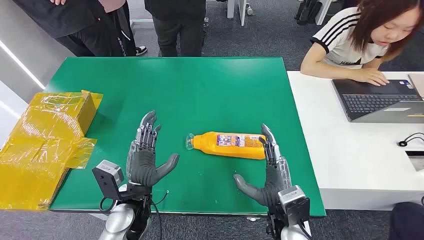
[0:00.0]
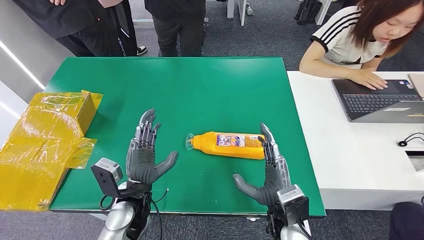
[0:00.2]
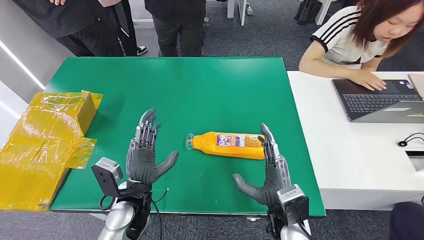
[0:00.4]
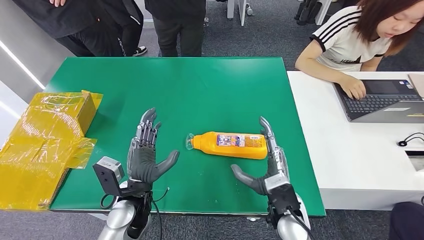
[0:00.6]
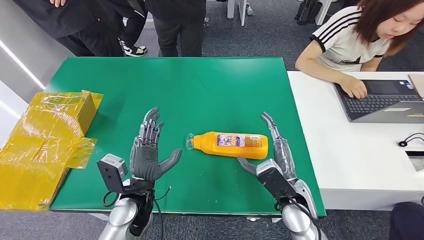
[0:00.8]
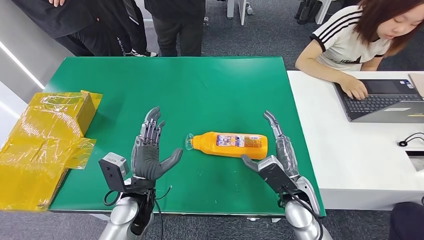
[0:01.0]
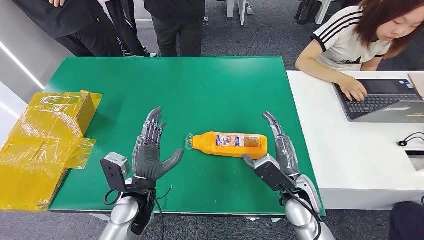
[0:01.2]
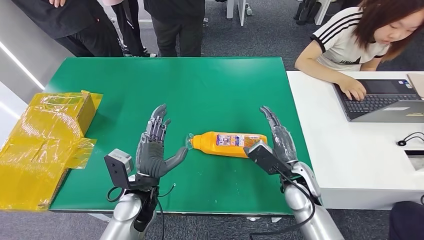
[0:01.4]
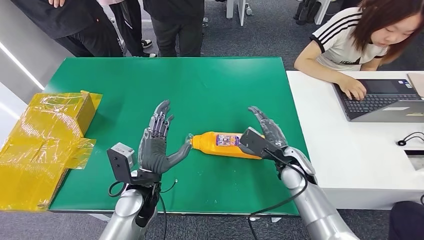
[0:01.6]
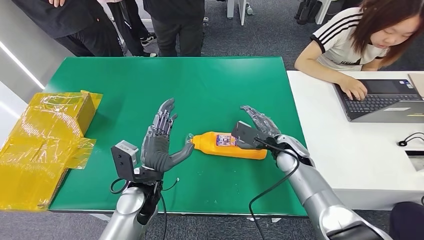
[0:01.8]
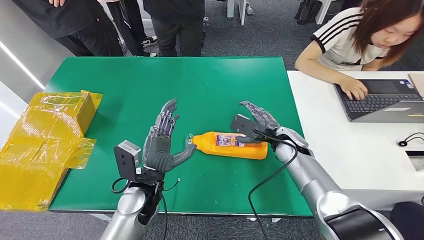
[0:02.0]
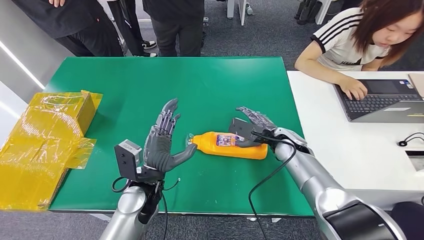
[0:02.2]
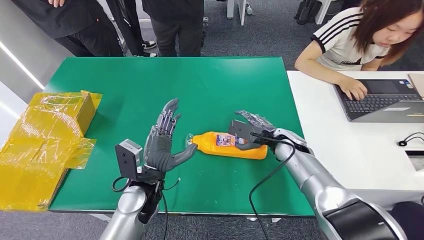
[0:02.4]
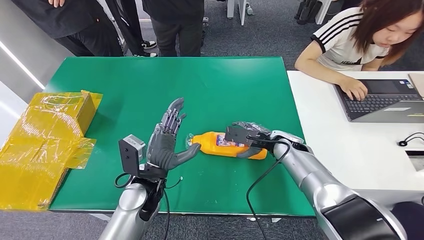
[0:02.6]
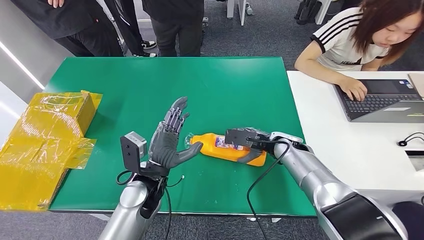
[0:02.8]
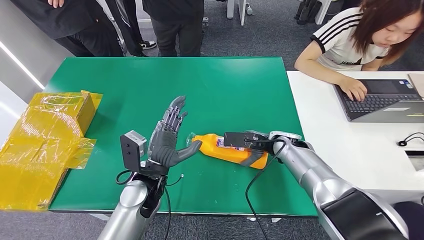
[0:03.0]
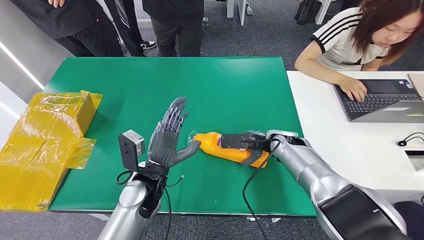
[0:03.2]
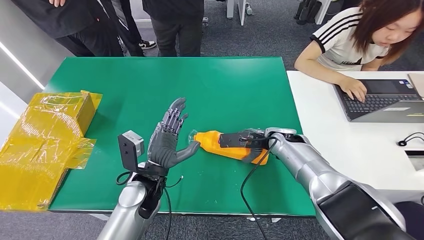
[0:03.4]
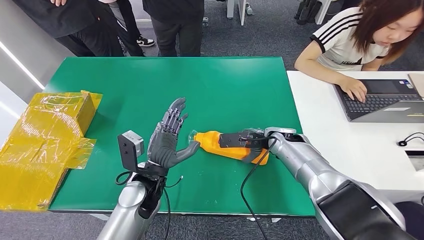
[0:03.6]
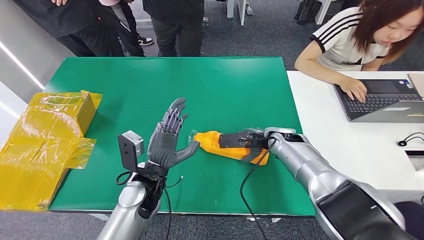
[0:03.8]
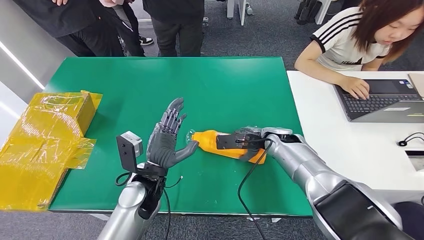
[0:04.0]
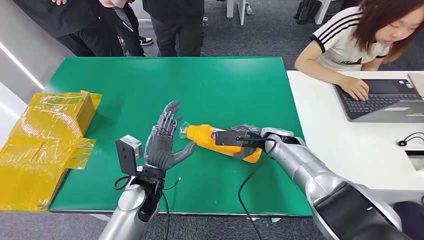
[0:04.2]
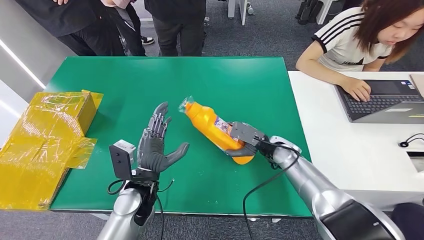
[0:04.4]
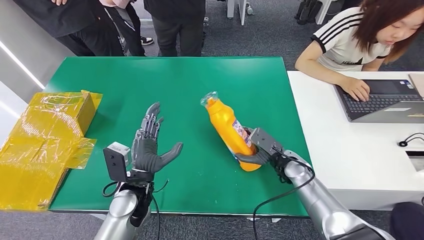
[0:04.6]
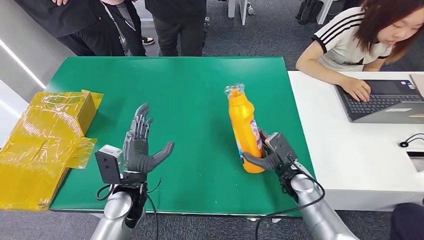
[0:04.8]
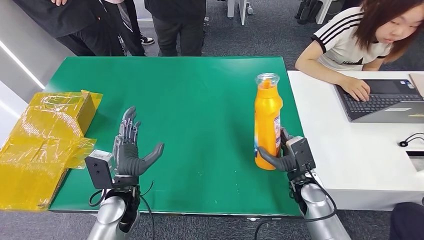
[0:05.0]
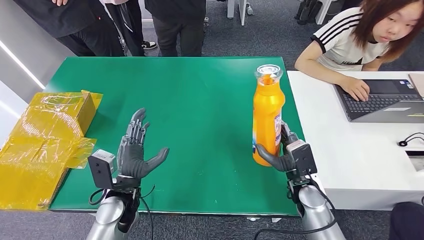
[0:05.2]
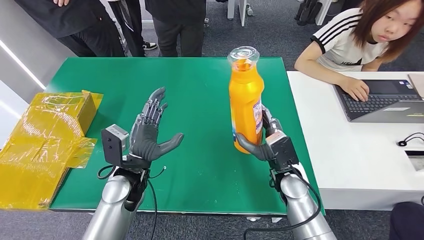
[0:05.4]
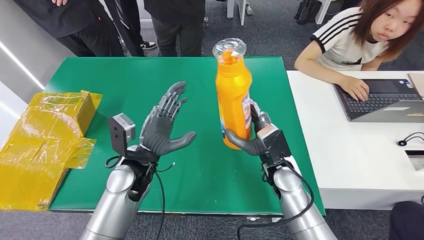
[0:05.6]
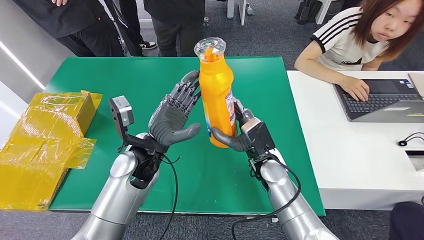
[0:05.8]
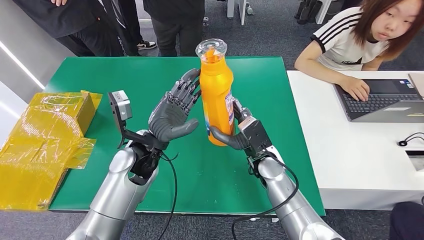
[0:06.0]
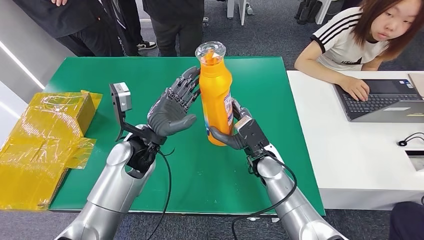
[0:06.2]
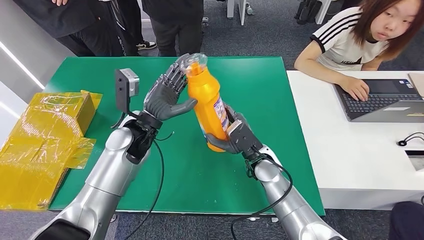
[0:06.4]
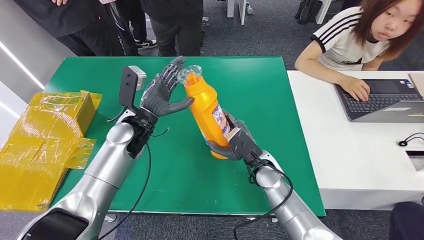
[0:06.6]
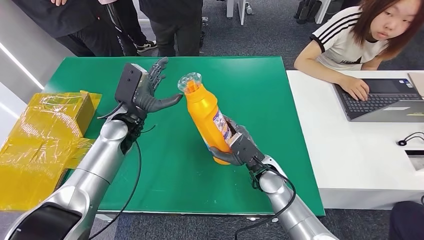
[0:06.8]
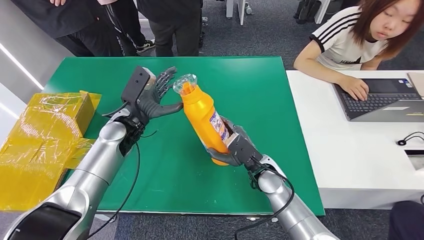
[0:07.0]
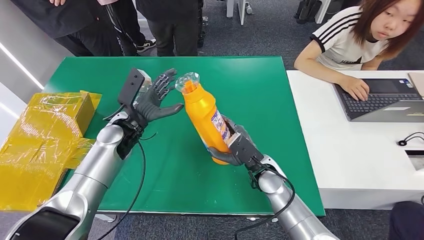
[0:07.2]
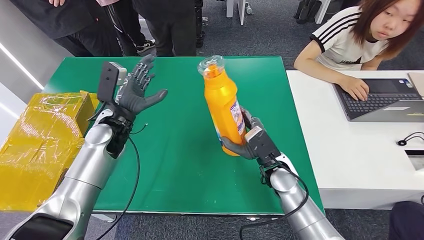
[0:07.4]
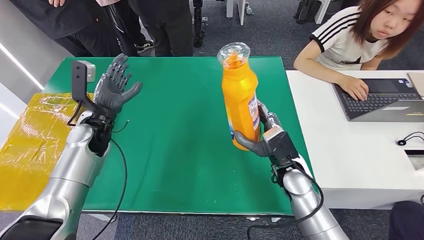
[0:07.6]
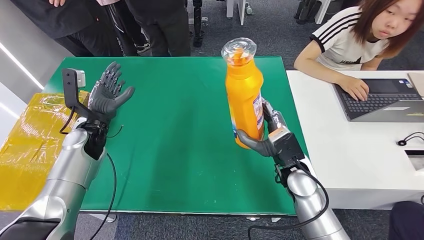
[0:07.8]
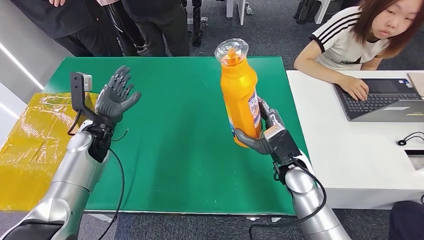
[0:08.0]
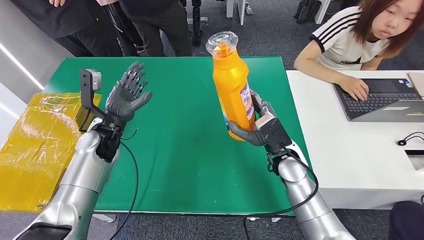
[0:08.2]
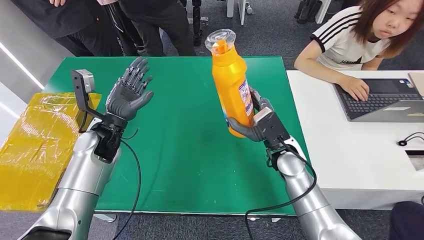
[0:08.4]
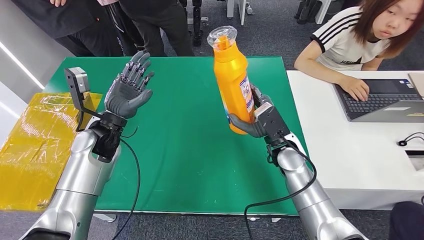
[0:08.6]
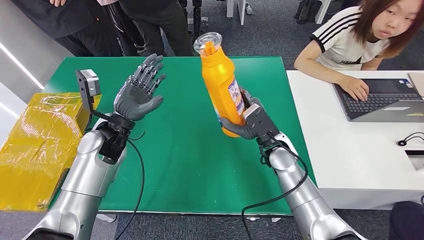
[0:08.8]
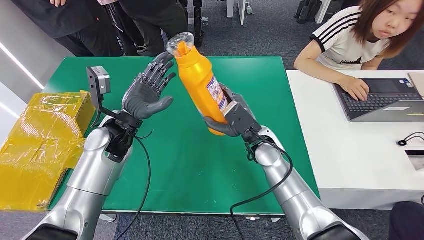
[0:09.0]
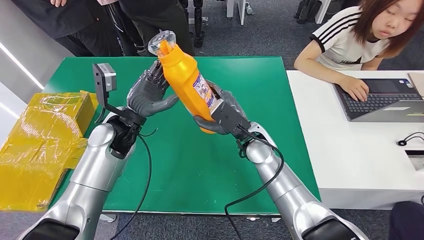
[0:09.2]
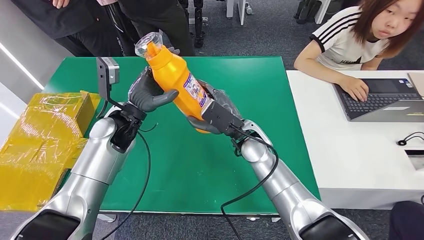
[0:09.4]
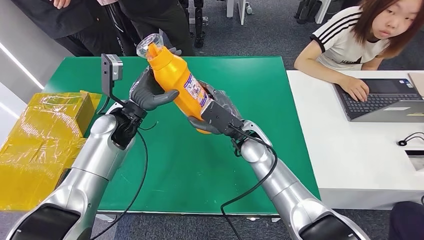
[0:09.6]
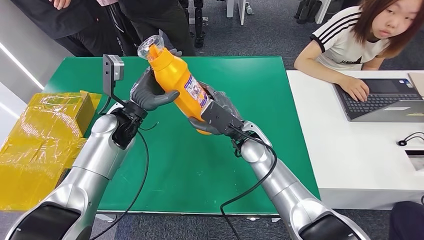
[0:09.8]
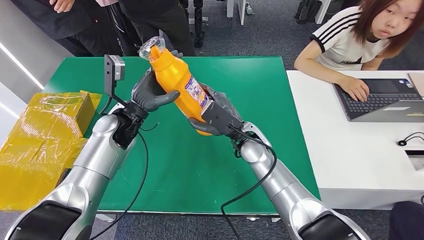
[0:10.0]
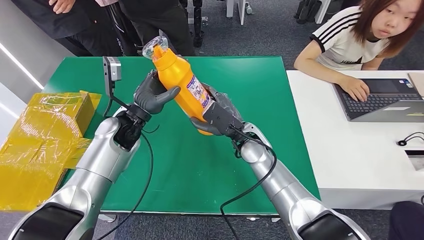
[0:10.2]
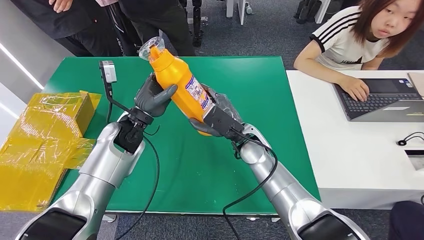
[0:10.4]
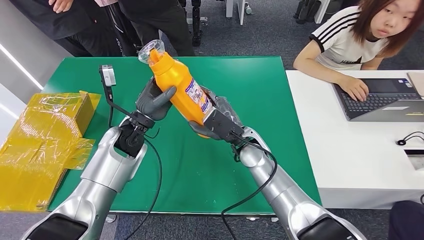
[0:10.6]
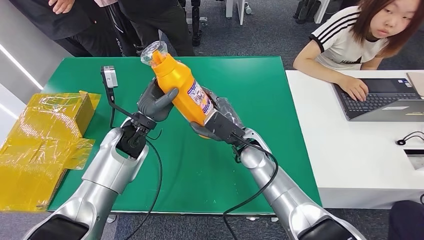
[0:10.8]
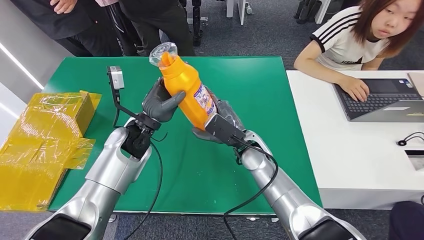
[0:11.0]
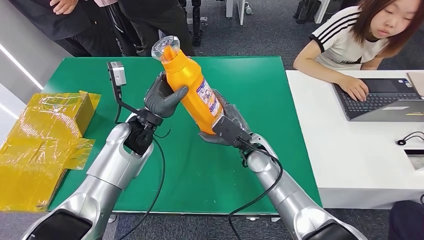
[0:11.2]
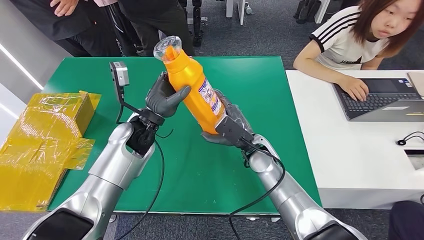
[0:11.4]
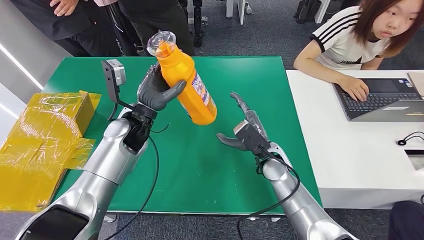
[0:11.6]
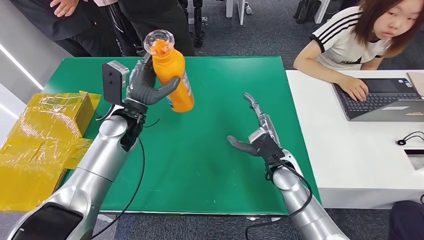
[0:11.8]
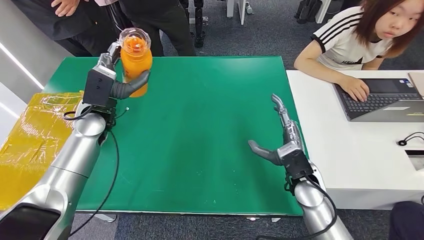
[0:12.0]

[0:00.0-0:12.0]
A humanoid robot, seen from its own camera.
Step, 0:00.0 to 0:04.8: Pick up the bottle from the table.
0:01.6 to 0:03.0: The right hand heads forward, covering about 5 cm.

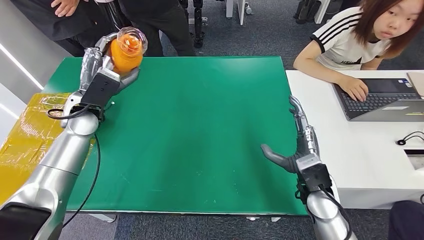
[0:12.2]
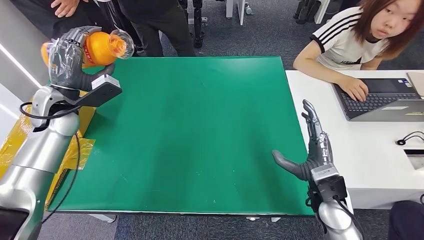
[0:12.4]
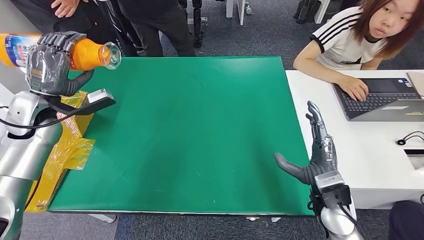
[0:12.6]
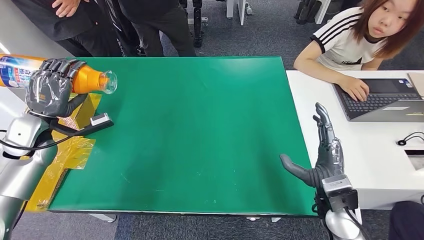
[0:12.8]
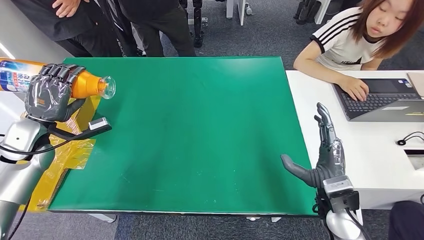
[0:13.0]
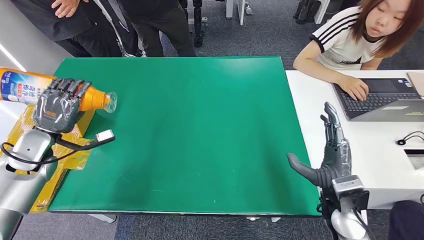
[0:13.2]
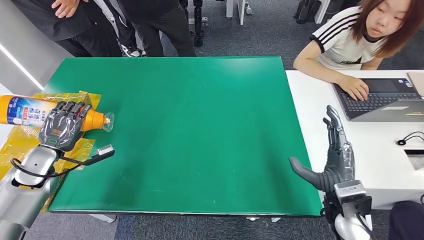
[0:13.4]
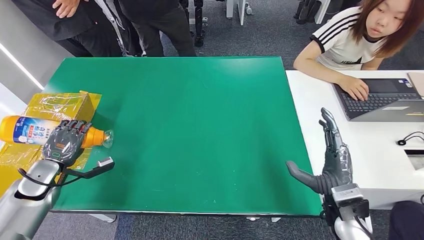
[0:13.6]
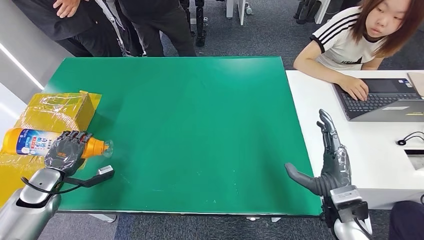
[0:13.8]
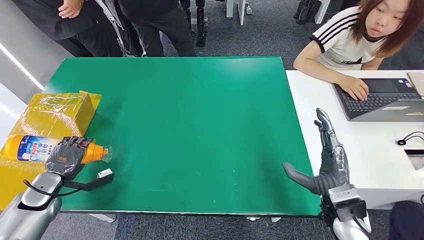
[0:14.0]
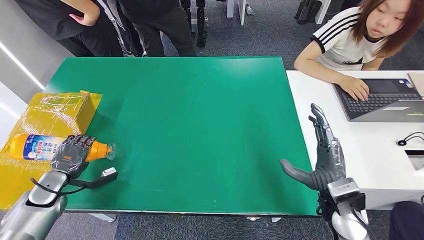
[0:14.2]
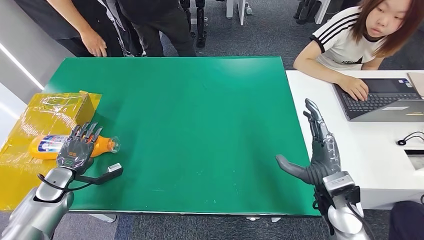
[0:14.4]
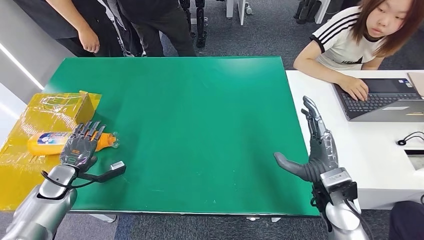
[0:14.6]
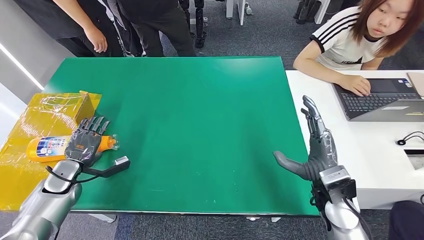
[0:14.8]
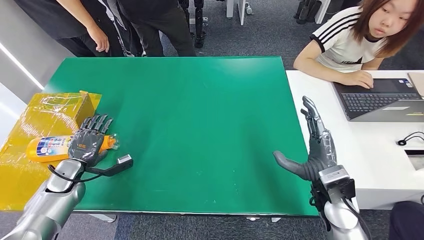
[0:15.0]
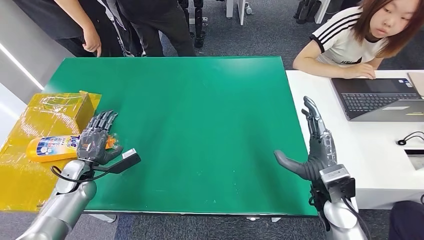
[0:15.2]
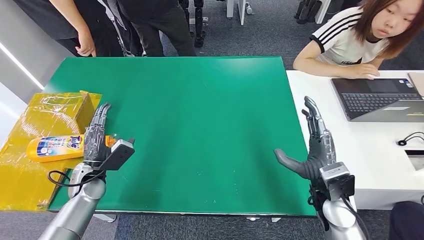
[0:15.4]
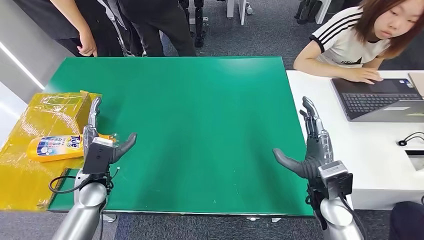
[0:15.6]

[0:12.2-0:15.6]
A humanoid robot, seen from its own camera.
Step, 0:12.2 to 0:15.4: Turn the bottle to the front side.

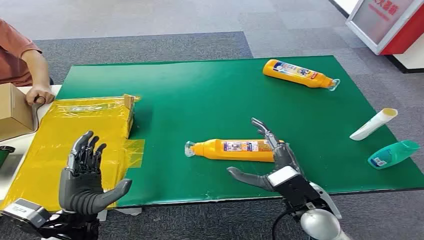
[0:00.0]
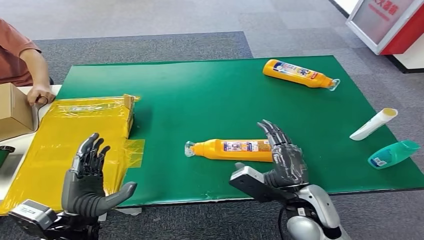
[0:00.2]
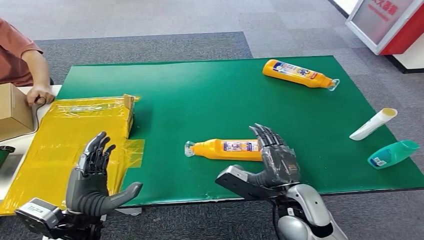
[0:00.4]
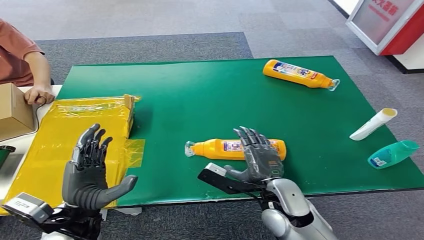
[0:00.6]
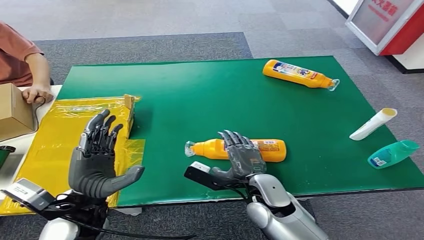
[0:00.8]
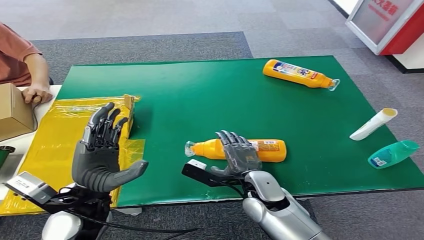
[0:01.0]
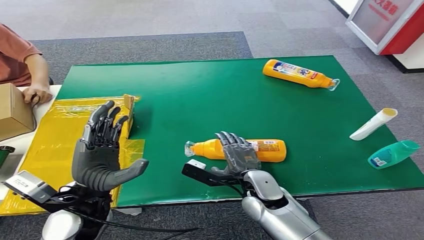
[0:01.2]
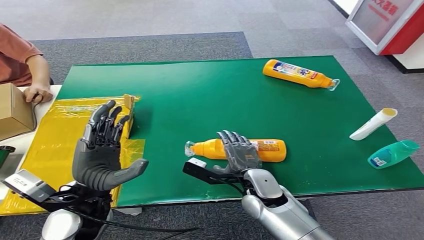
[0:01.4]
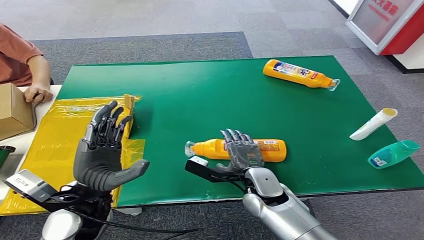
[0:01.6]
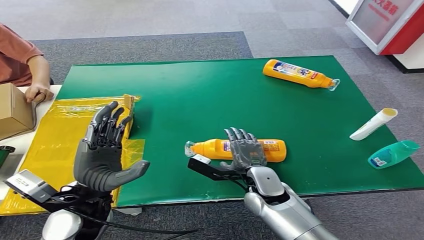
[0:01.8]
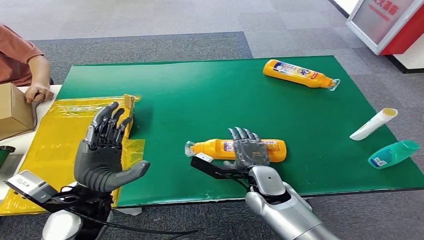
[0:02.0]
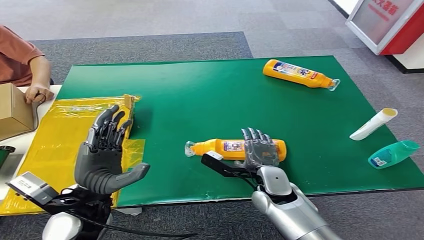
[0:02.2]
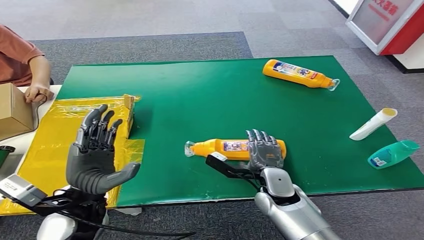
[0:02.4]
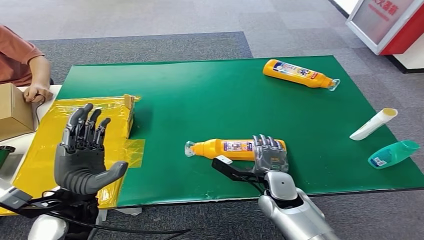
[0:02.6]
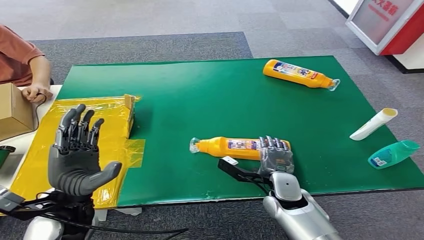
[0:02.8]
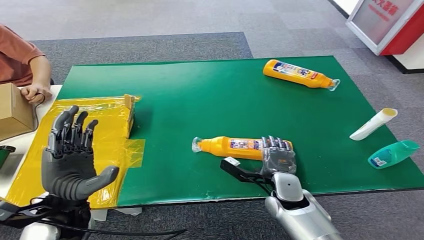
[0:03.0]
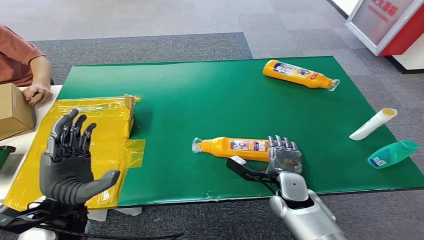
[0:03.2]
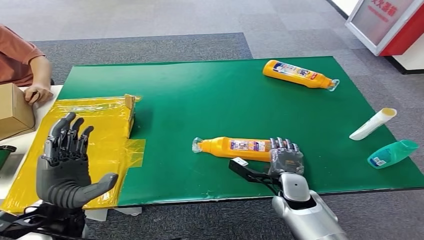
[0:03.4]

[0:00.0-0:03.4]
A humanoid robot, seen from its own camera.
0:01.6 to 0:03.4: The right hand heads to the right, covering about 10 cm.
